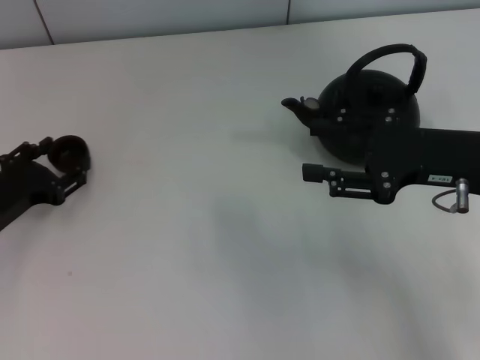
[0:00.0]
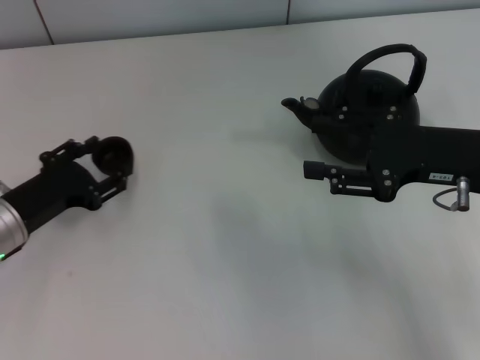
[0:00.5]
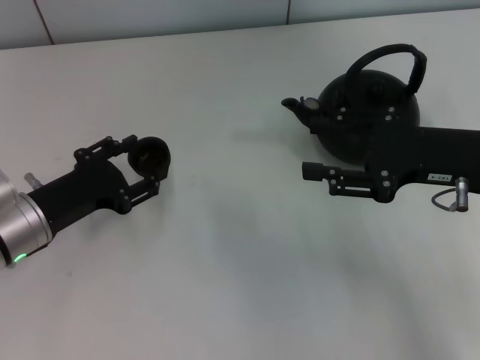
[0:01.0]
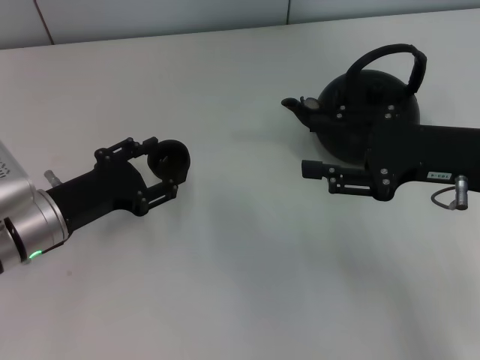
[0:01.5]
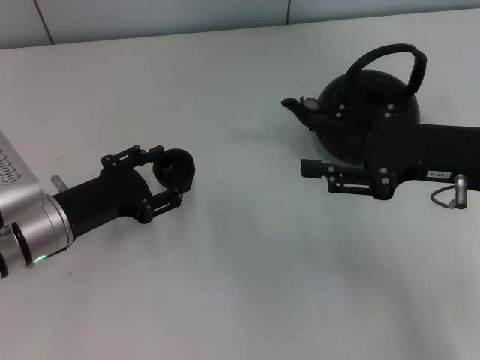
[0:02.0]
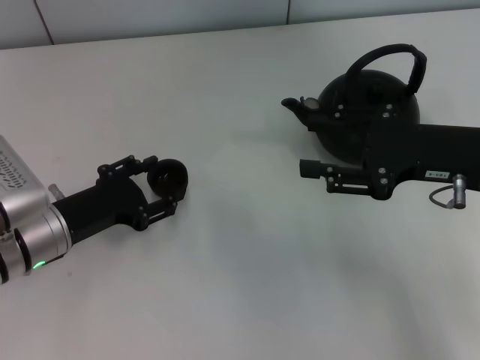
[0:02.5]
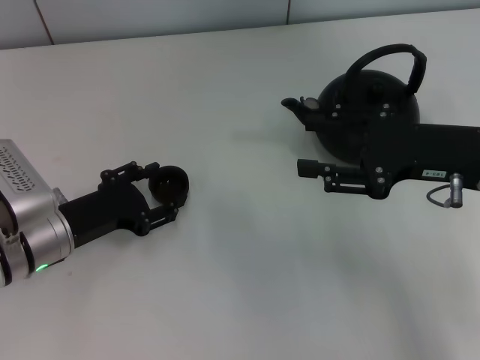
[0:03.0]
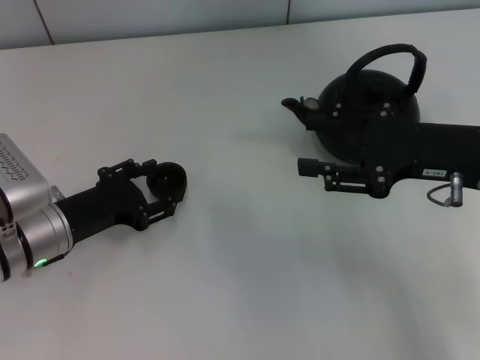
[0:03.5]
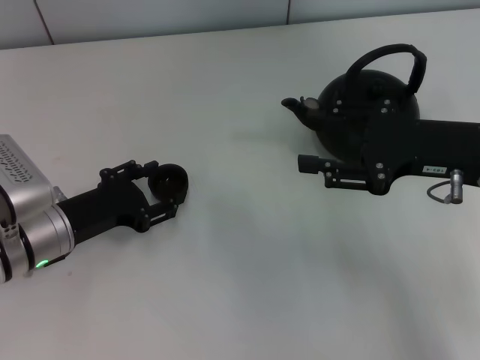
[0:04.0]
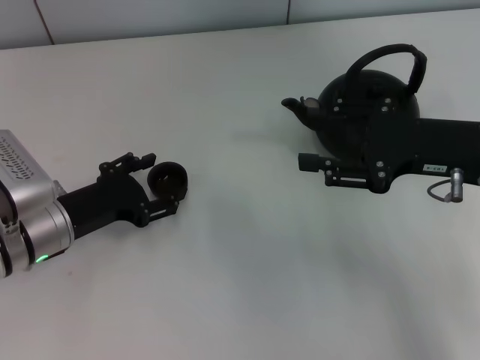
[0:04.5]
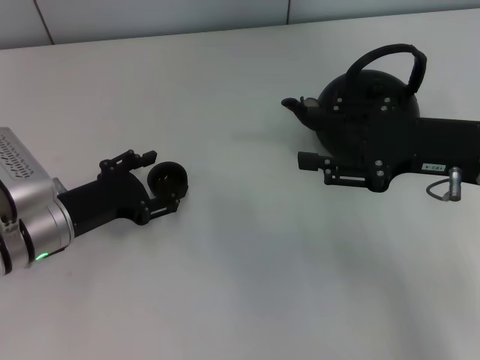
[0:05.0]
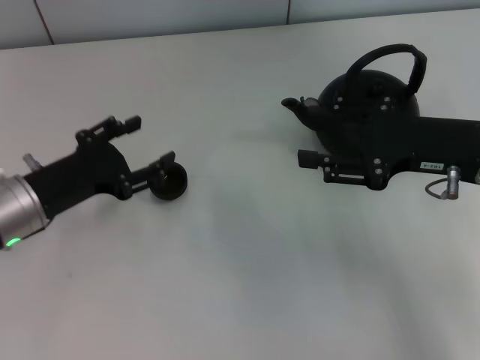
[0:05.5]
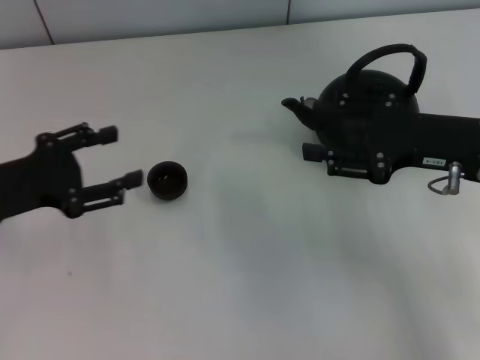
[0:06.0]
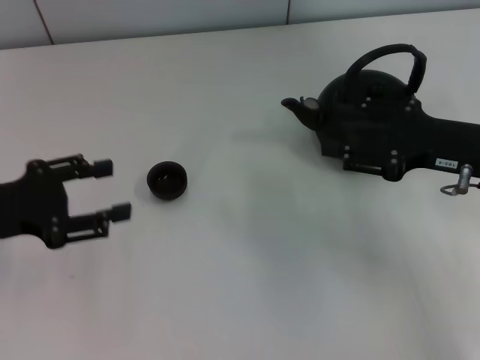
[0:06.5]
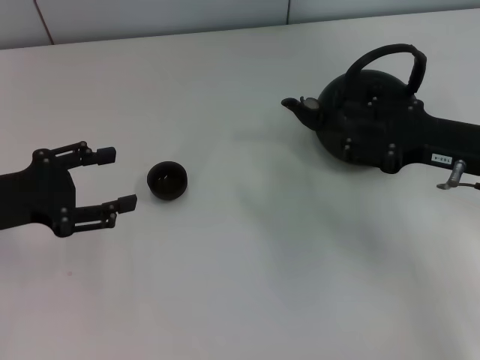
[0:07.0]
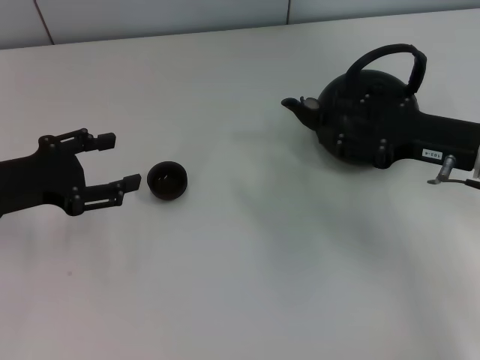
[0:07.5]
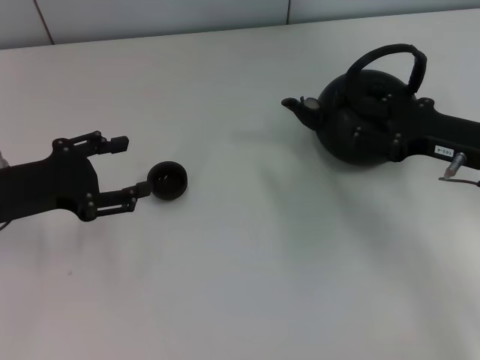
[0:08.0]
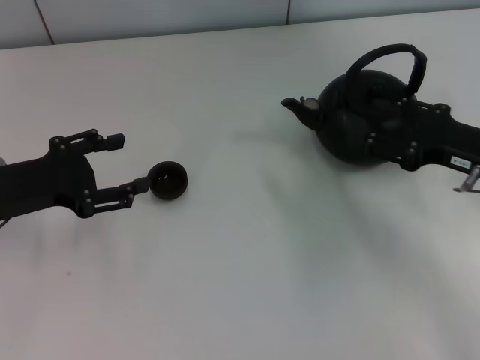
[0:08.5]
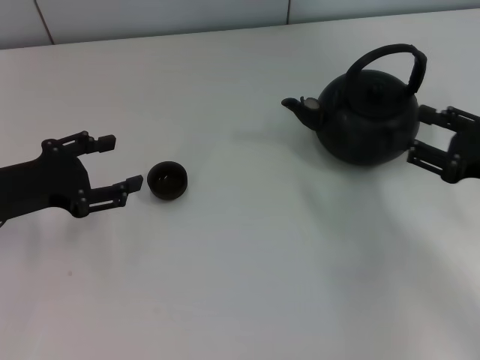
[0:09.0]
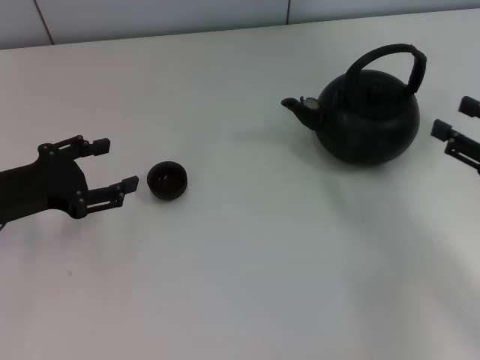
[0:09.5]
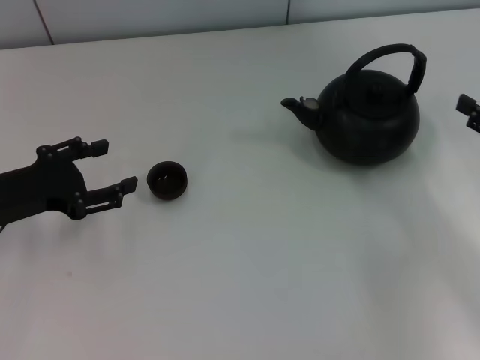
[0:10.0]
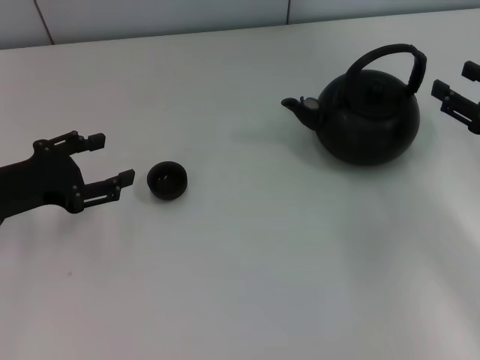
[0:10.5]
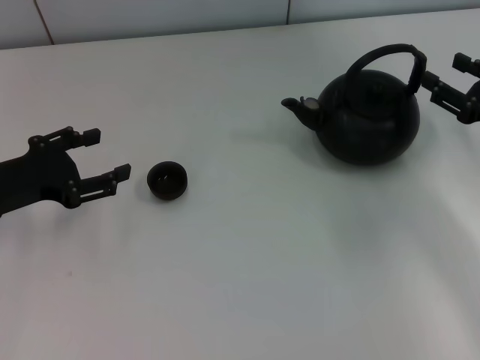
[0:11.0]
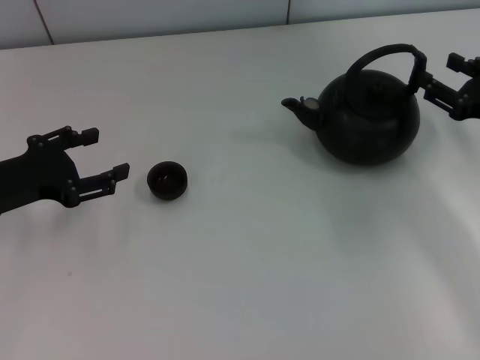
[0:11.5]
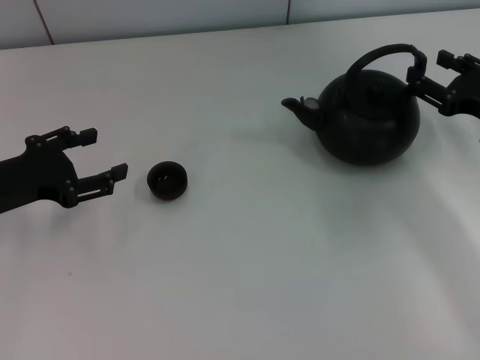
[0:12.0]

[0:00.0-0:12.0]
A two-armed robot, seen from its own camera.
Task of the whole recording: Grasp the handle of the teapot with one hand and pour tea into the teacup.
Step, 1.0 to 7.0 s: Place the teacup in the center of view with the left gripper.
0.0 to 2.0 s: The left gripper moves to the right, about 5 cm.
2.0 to 4.0 s: There are only small adjustments of the grippers.
4.0 to 6.0 s: The left gripper heads upward and to the left, covering roughly 10 cm.
6.0 to 8.0 s: The left gripper closes and opens again.
8.0 to 10.0 s: The right gripper is displaced to the right and backward by about 10 cm.
10.0 to 12.0 s: The right gripper shifts approximately 5 cm forward.

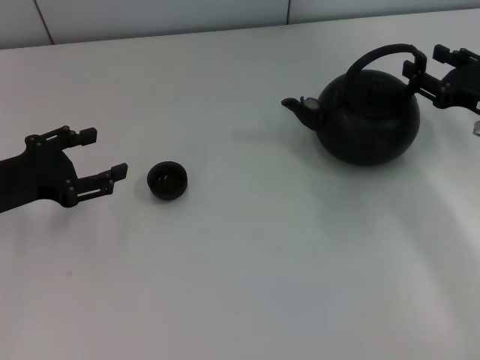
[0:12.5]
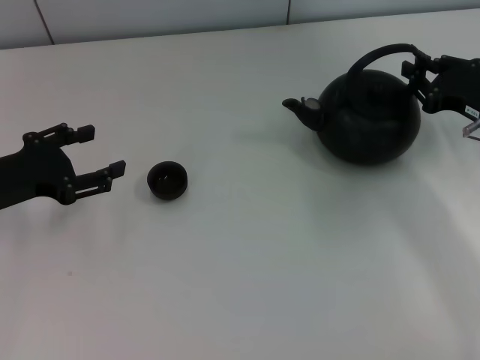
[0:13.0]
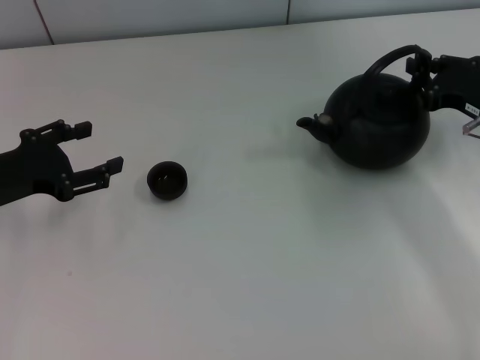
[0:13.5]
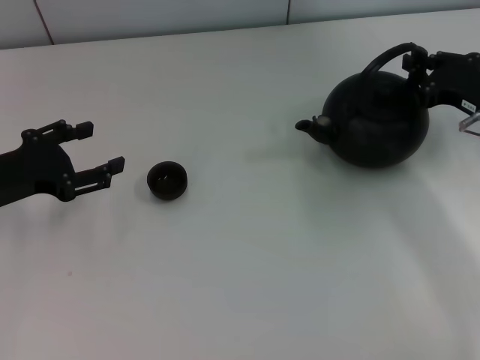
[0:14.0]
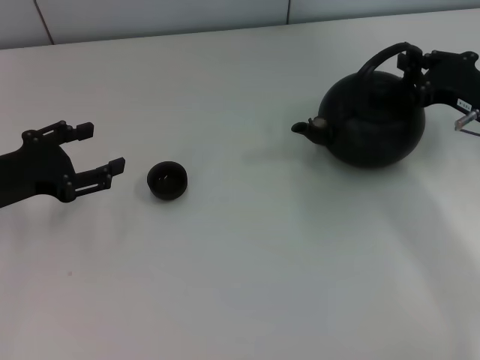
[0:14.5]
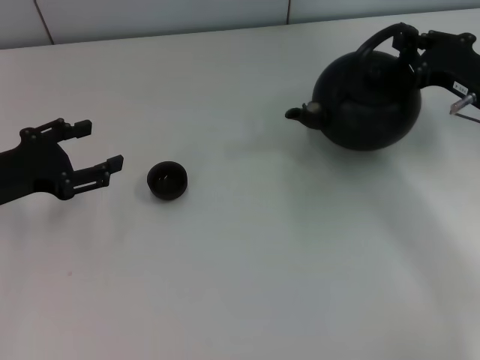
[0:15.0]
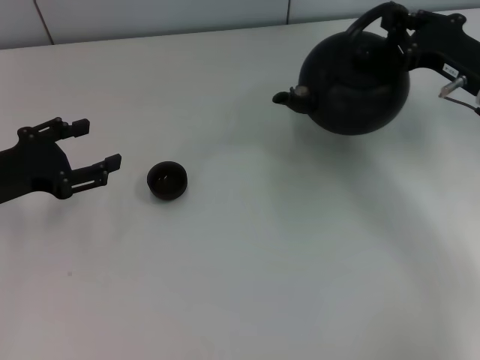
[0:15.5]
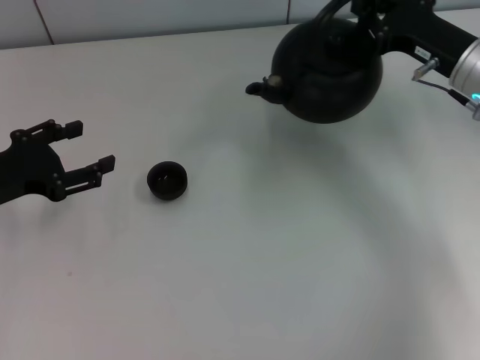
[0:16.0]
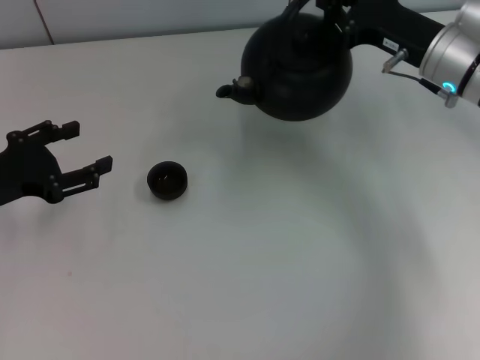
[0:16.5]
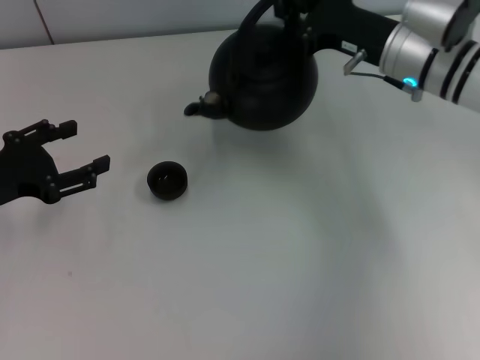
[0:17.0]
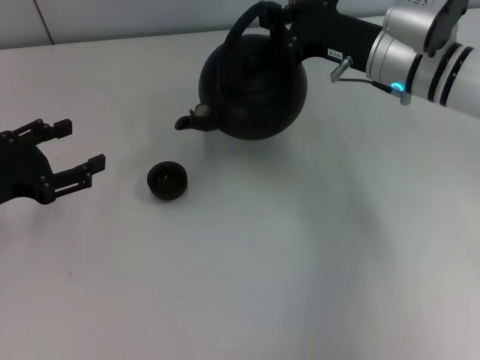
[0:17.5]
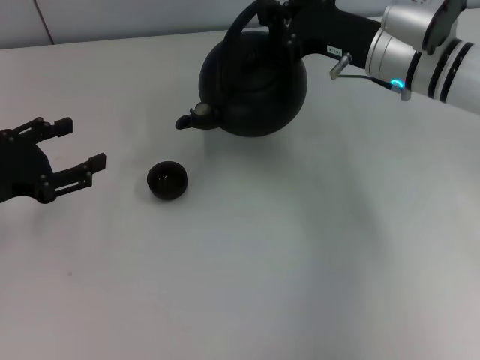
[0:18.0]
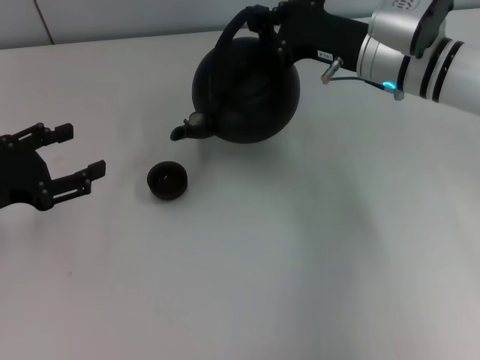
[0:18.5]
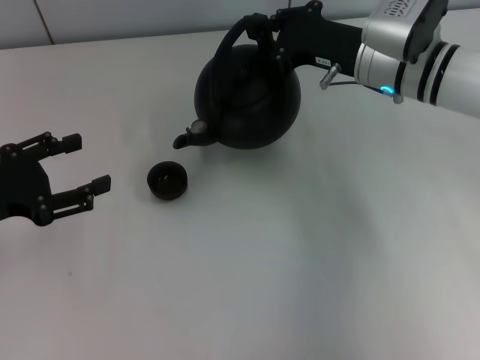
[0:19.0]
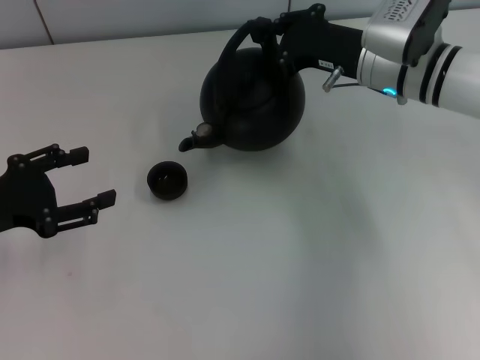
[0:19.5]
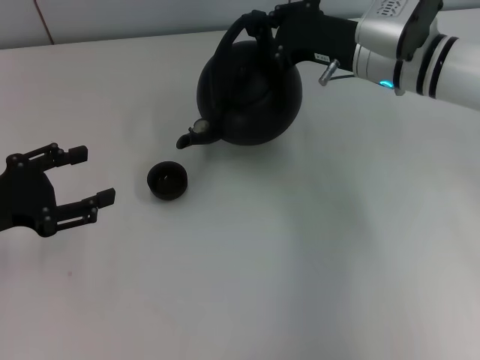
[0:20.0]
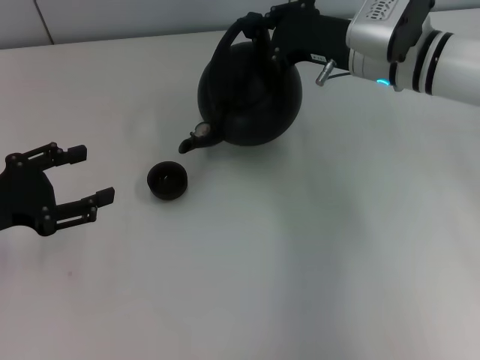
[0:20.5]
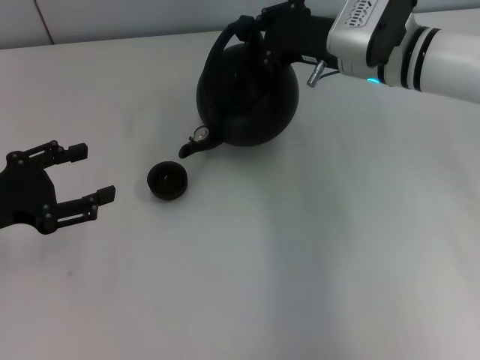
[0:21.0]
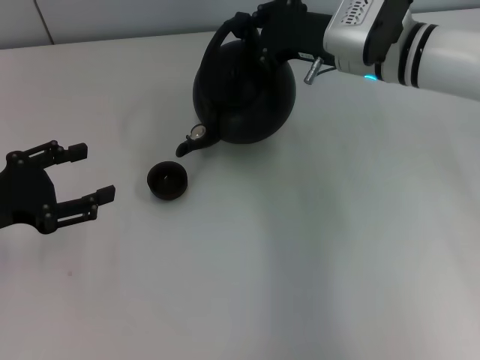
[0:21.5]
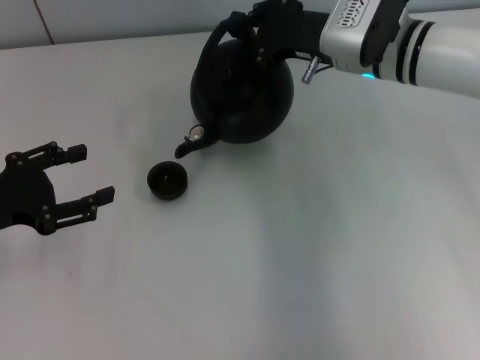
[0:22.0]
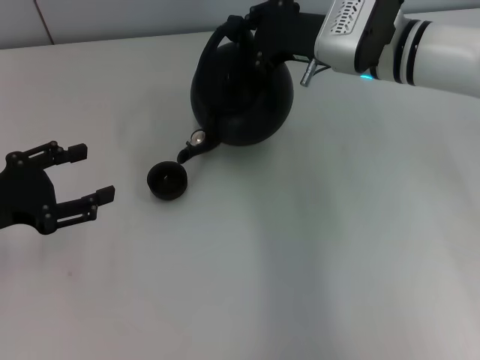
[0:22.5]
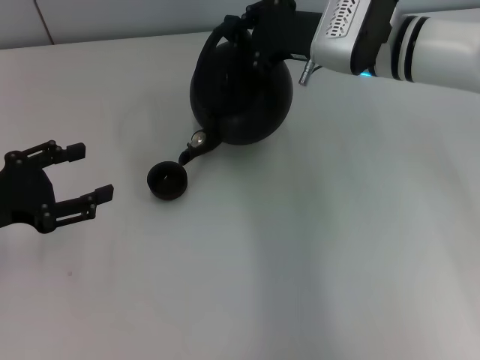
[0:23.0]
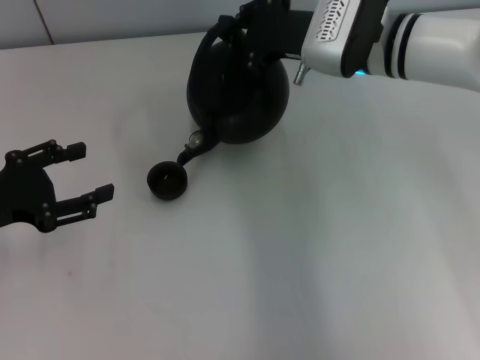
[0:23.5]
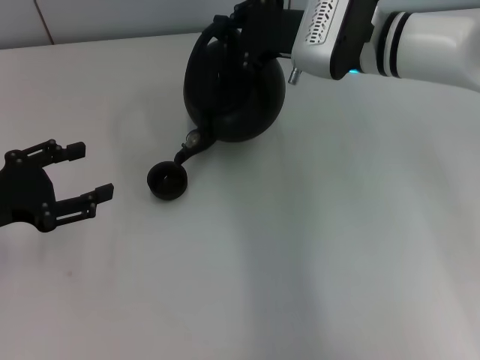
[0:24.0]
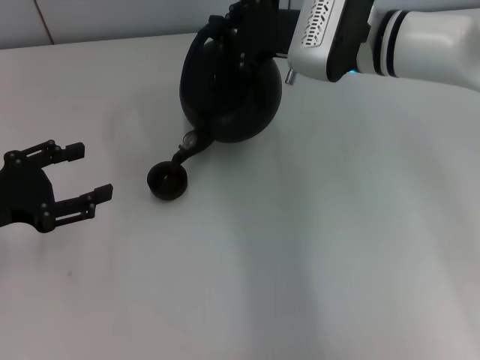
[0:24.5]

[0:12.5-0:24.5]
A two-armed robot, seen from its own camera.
Task of the whole recording: Grasp the handle of the teapot with one hand and pour tea into the teacup.
Step, 12.5 to 15.5 s: Pick up the teapot with the right gripper.
12.5 to 14.5 s: The right gripper closes its fingers.
14.5 to 16.5 s: The right gripper goes roughly 10 cm to the left and forward.
16.5 to 18.5 s: The right gripper is displaced to the left by about 5 cm.
18.5 to 22.5 s: The grippers make only small movements.
22.5 to 24.5 s: The grippers make only small movements.

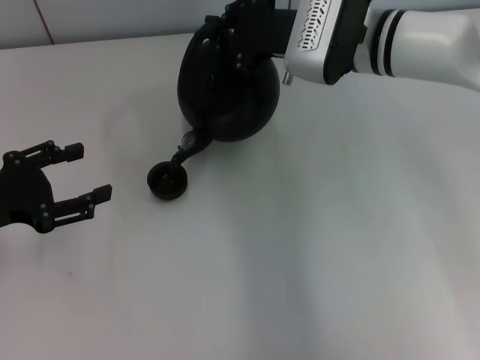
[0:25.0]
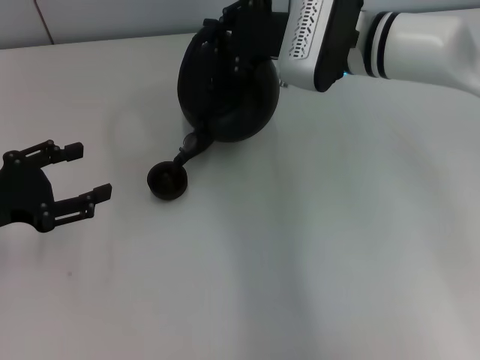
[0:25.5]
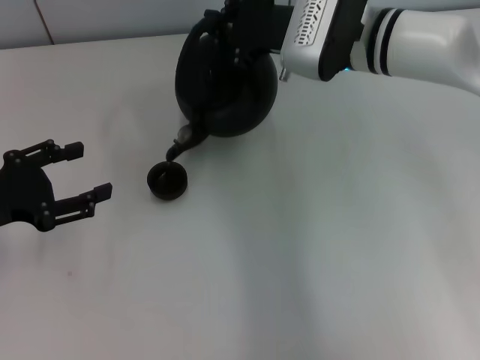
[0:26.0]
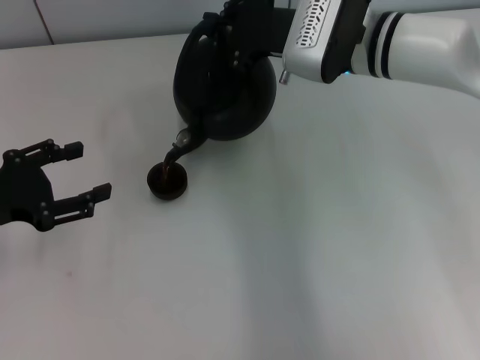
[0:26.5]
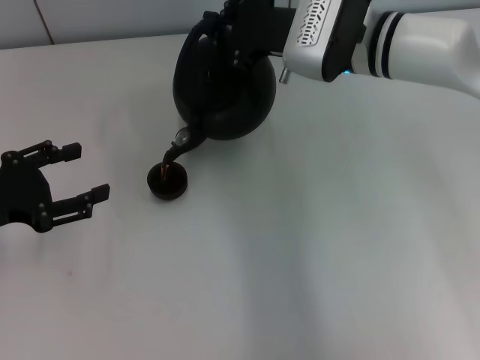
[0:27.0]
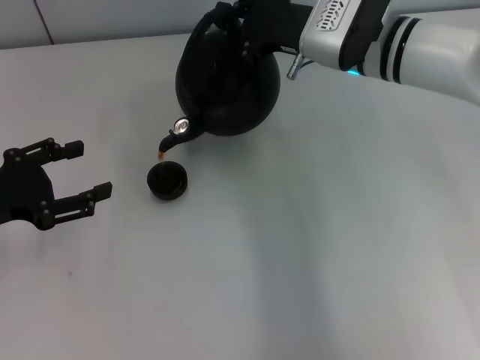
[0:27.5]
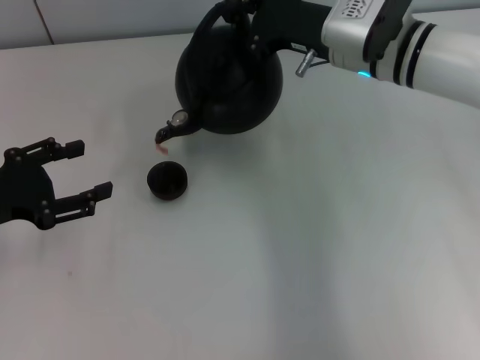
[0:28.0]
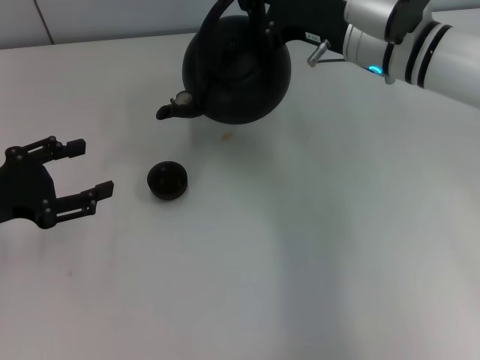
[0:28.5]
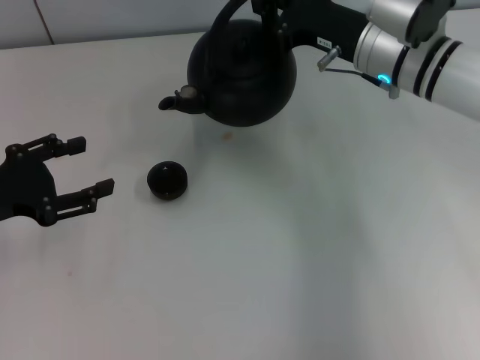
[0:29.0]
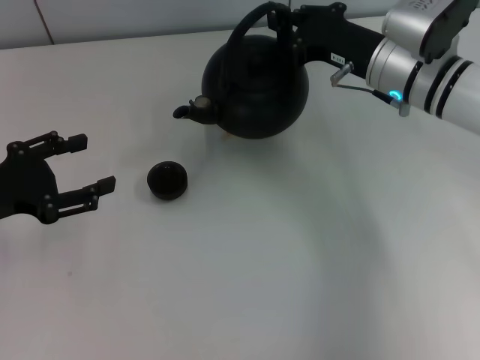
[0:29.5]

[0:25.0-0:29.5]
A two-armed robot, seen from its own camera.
Task of the whole recording: Grasp the handle of the teapot with one hand and pour tea into the teacup.
25.0 to 27.0 s: The two grippers keep their place.
27.0 to 29.5 s: The right gripper is displaced to the right by approximately 5 cm.
